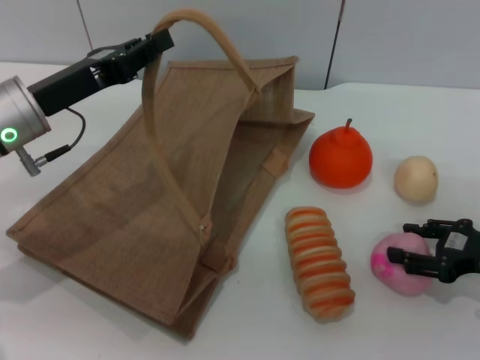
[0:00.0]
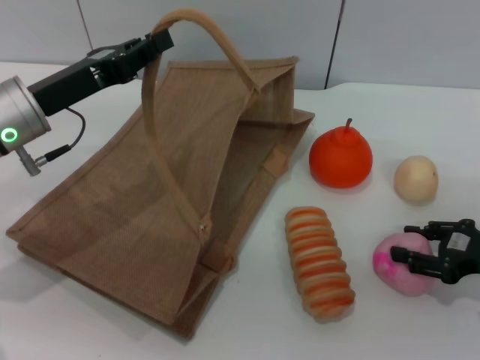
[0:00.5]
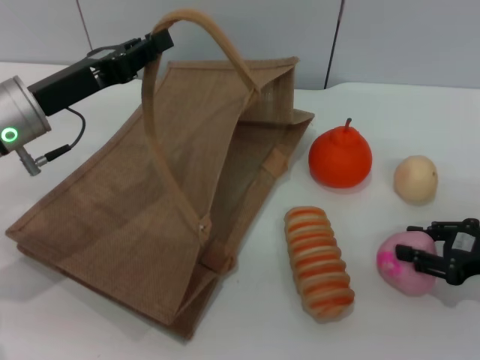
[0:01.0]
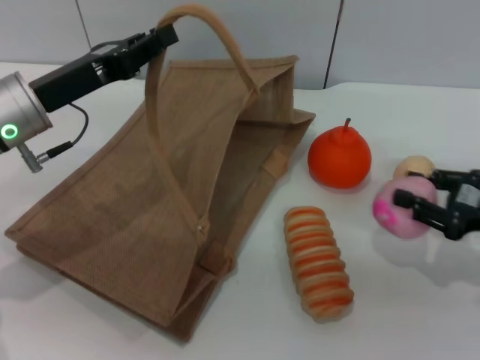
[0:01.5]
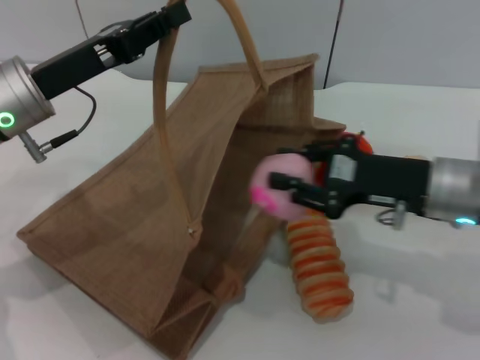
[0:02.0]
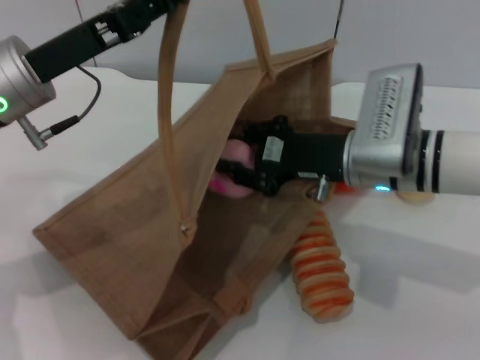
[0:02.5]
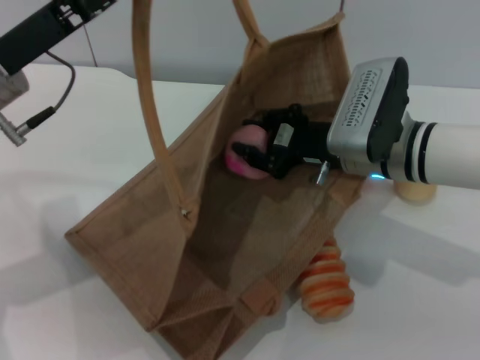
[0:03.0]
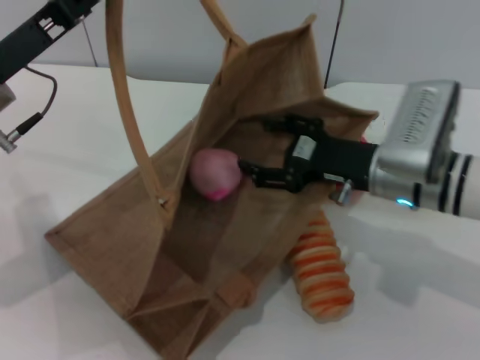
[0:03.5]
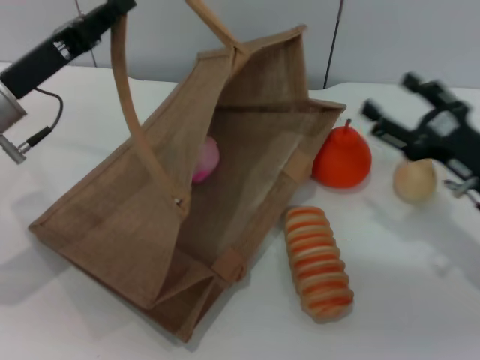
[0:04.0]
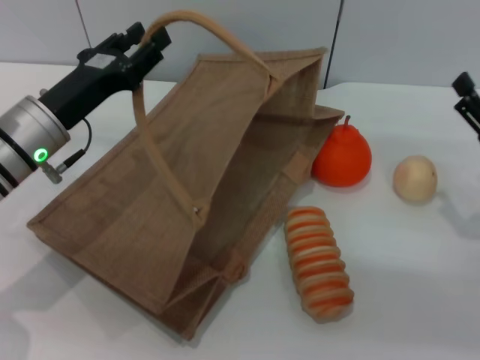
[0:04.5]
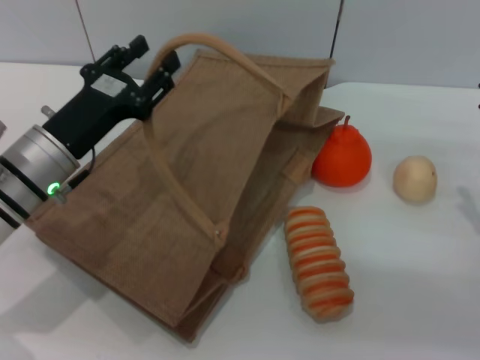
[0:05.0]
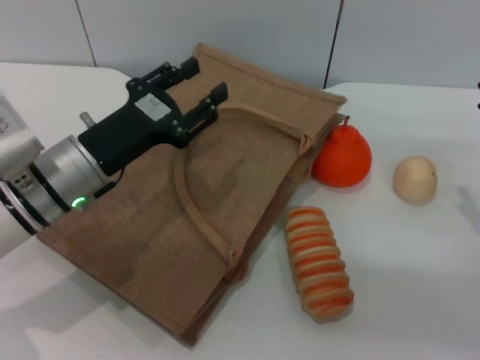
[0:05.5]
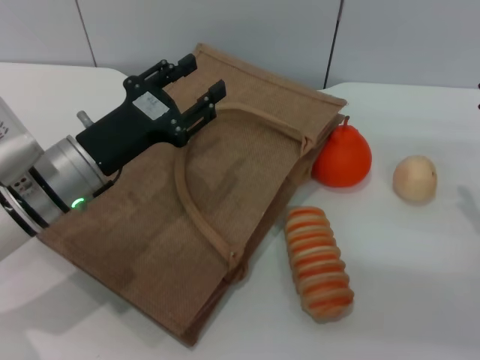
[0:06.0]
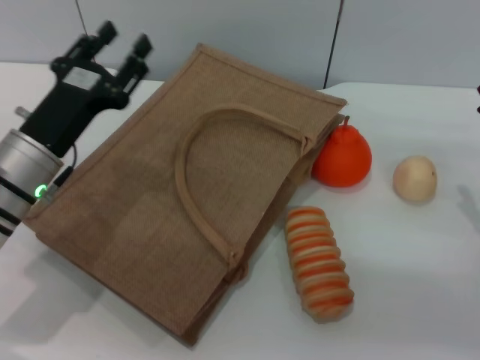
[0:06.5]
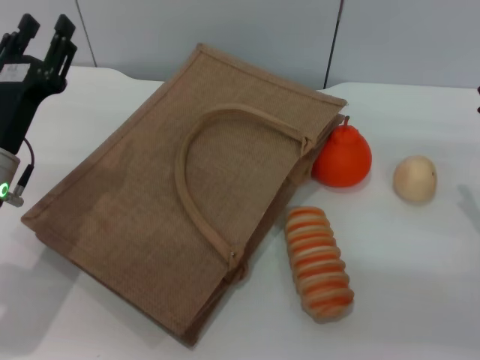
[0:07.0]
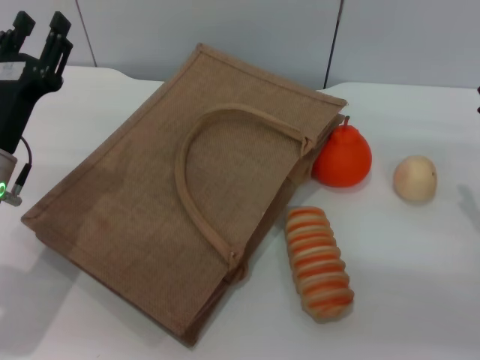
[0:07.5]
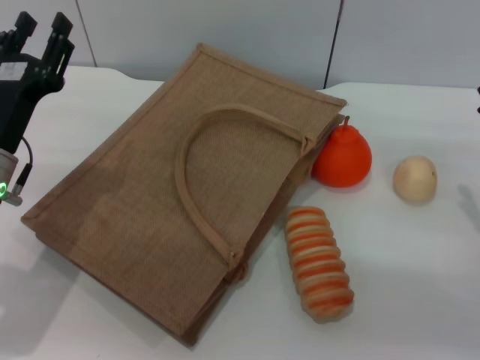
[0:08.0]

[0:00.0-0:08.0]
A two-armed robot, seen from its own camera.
Task of the whole recording: pick up the peach from the table and place it in the brown handbag.
Step, 2.0 to 4.0 s: Place the peach into the woven bag with the right gripper.
Step, 4.5 to 5.5 s: Lower the woven bag with the left gripper to close it.
0.0 to 2.0 s: The right gripper moves to the left and upward, roughly 15 cm, and closes.
2.0 to 4.0 s: The right gripper heads to the right, covering approximately 5 cm, and opens up.
4.0 to 6.0 s: The right gripper moves roughly 5 cm, while the left gripper heads to the right and downward, covering some 10 cm, and opens up.
6.0 to 8.0 s: The left gripper shifts roughly 5 cm to the left.

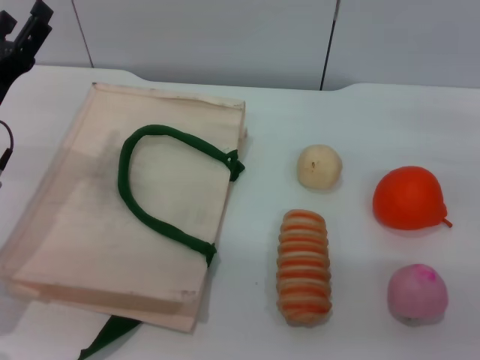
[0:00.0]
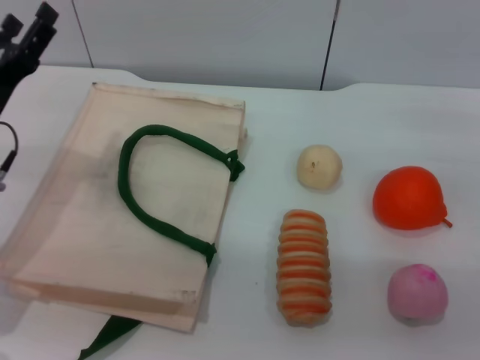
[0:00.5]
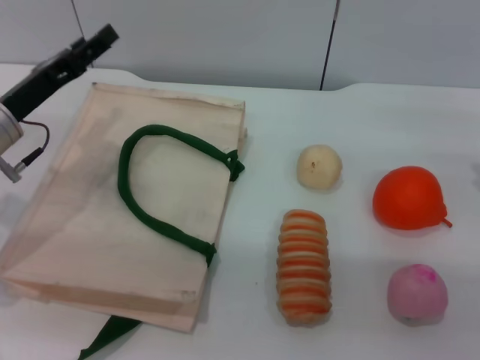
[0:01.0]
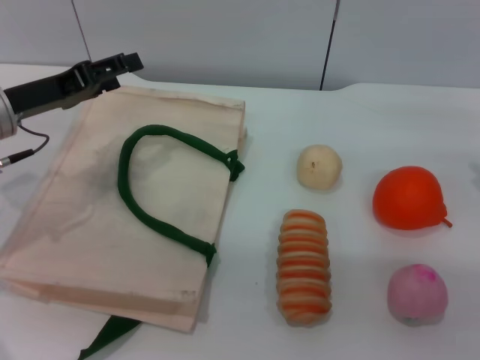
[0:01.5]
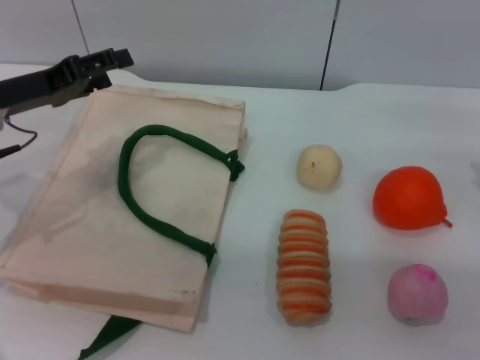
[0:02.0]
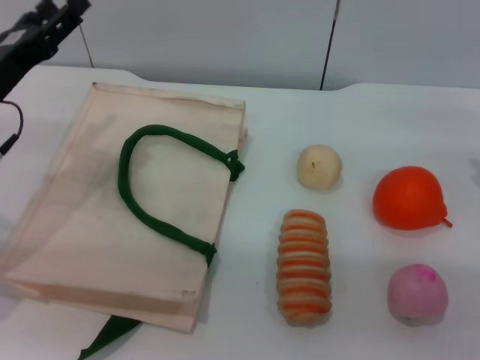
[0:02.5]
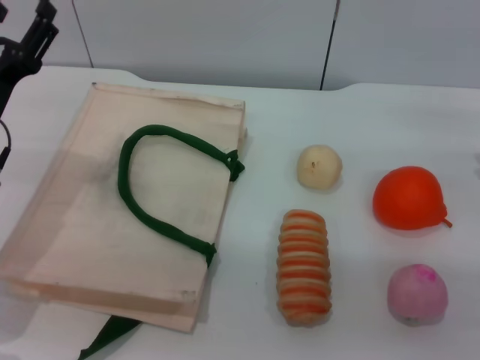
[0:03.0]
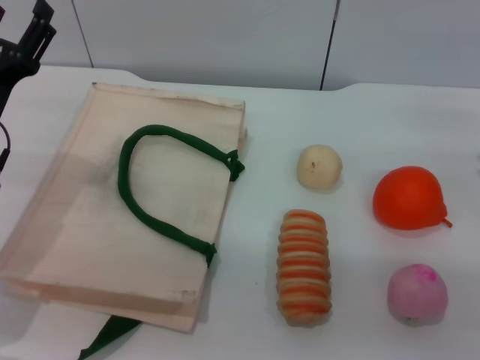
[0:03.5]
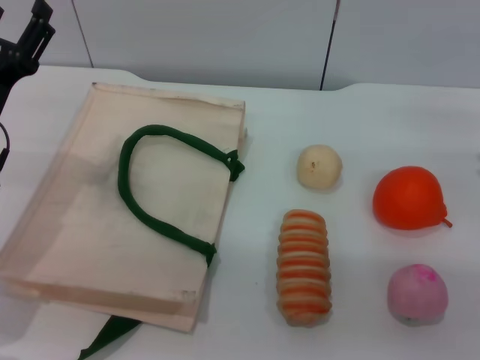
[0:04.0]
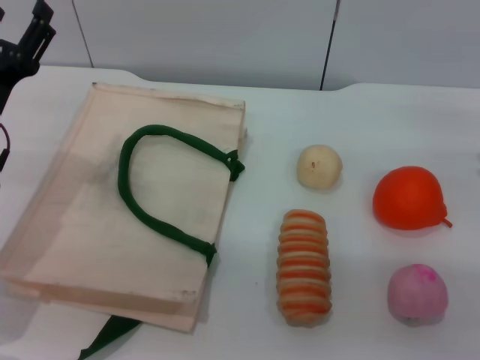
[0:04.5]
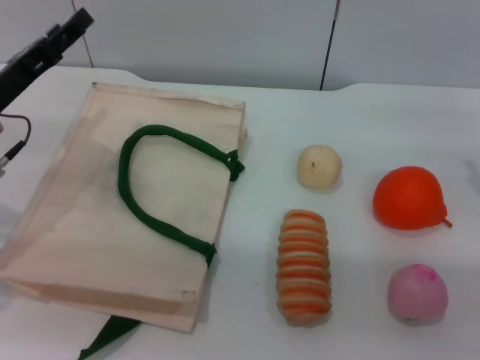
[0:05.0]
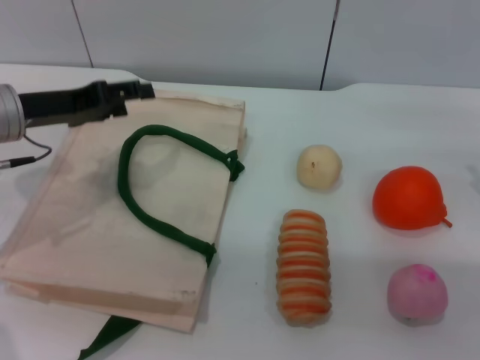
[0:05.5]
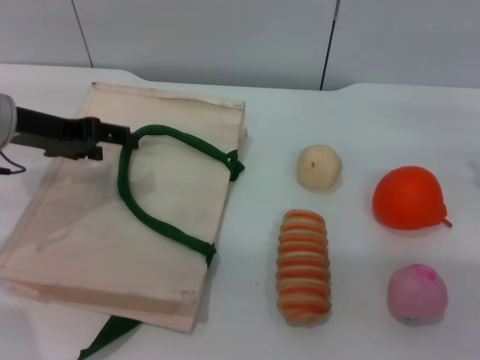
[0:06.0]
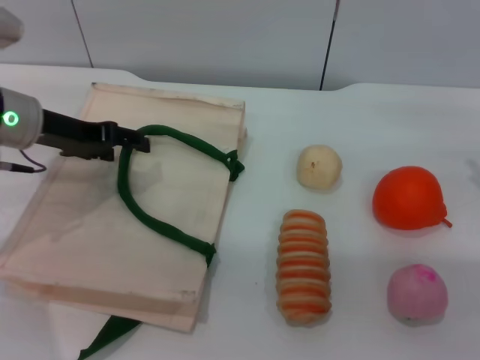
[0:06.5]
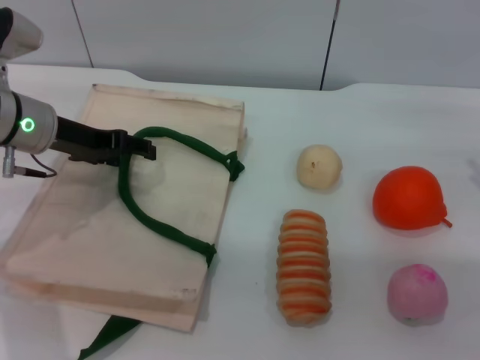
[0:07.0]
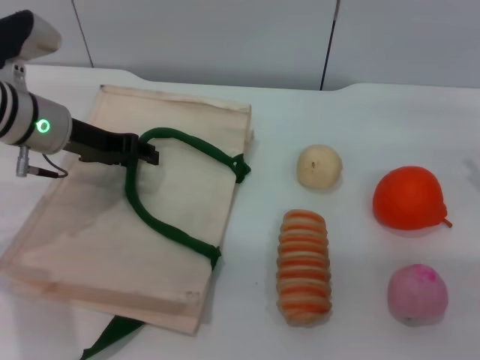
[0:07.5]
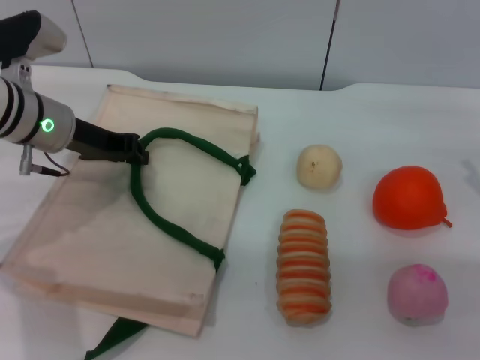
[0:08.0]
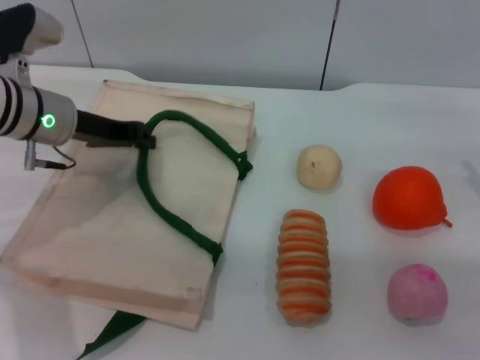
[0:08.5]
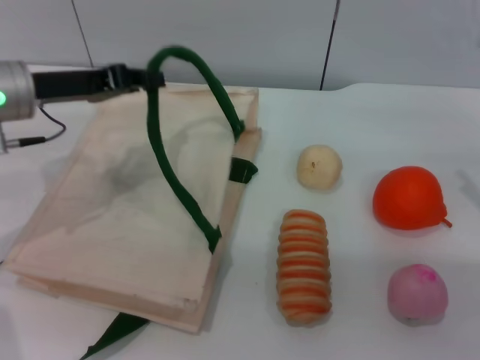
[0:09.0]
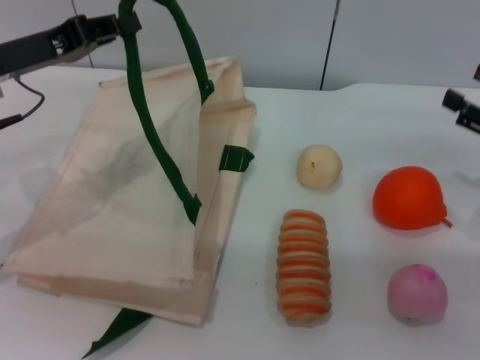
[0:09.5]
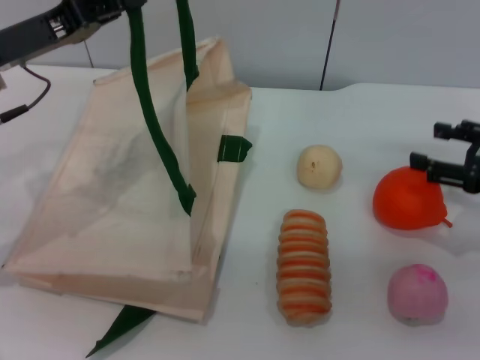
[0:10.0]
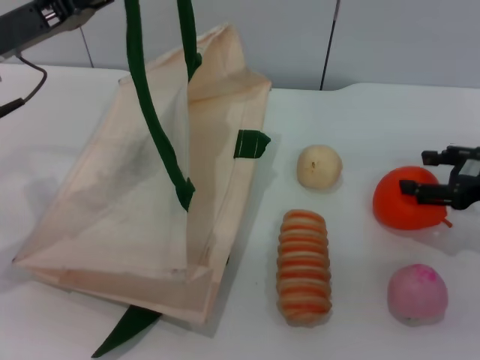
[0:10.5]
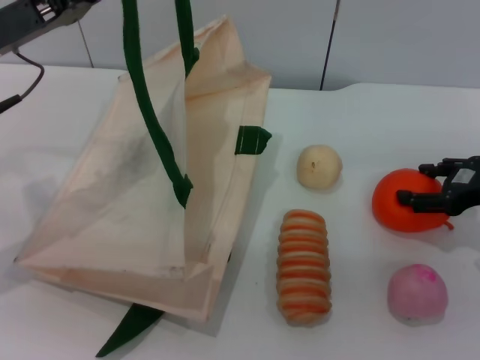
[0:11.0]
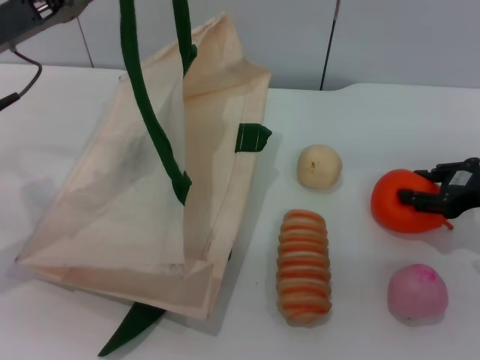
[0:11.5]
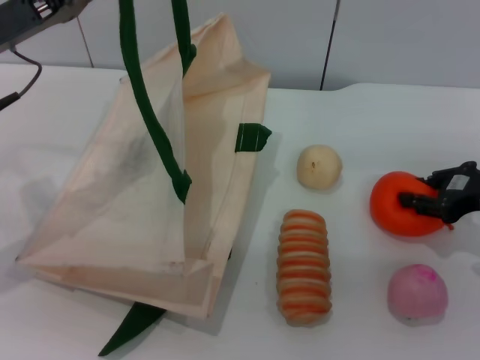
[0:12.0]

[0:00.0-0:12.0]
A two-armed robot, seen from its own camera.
Task of the whole recording: pick up the orange and peach from the table and place it in the white handbag.
Step, 0.0 to 8.5 s: Lift the woven bag with the left gripper to open it.
0.0 to 2.0 s: The left gripper ends up roughly 5 cm from where it was.
2.0 to 4.0 s: The left gripper moves approximately 5 cm.
4.0 to 6.0 s: The left gripper is displaced upward and forward by roughly 10 cm.
6.0 to 8.0 s: The left gripper moves approximately 5 cm, and closes up.
8.0 to 10.0 s: The left gripper heads upward, covering some 5 cm.
10.0 to 12.0 s: The right gripper closes its fingers.

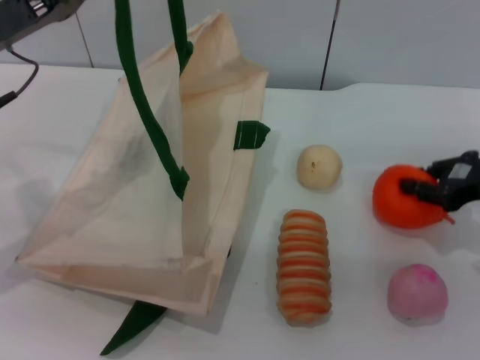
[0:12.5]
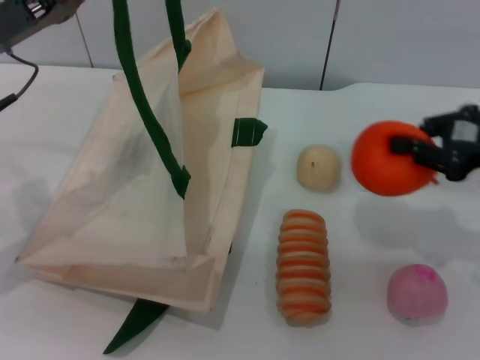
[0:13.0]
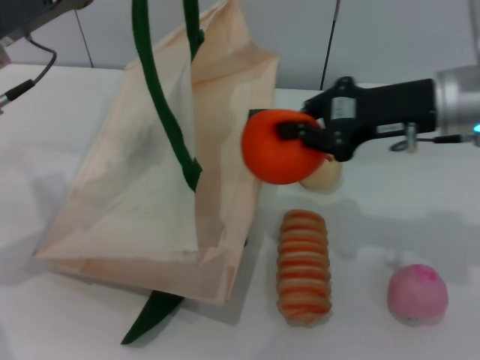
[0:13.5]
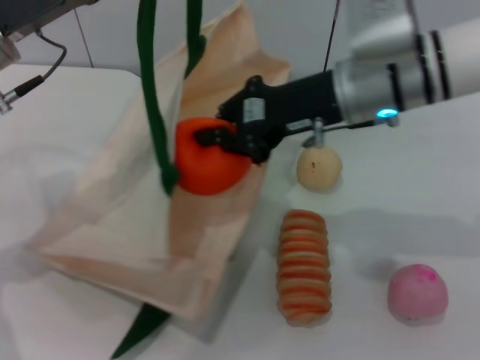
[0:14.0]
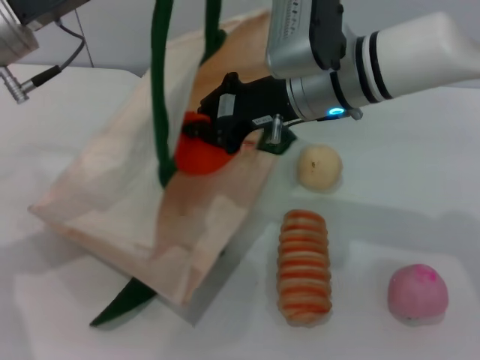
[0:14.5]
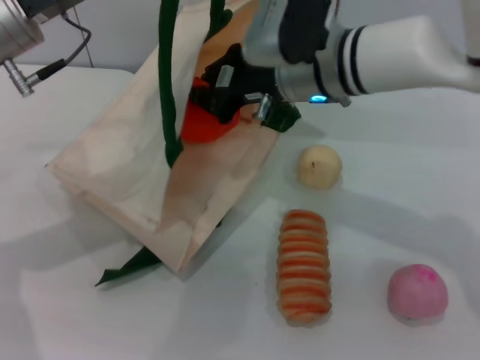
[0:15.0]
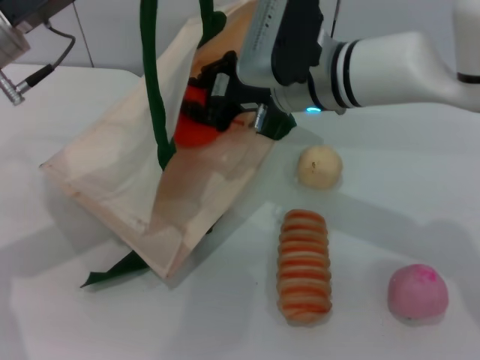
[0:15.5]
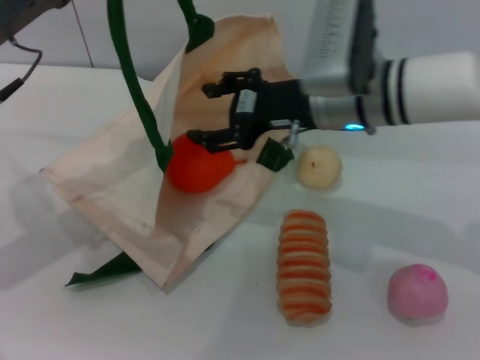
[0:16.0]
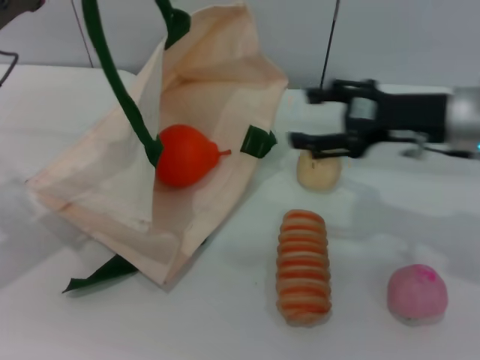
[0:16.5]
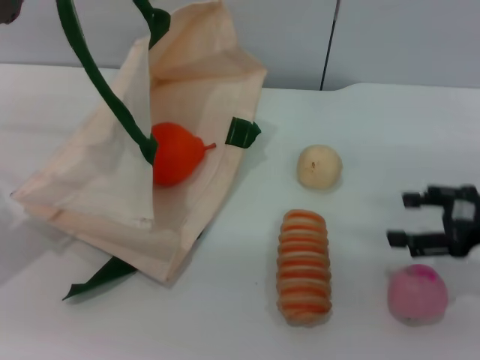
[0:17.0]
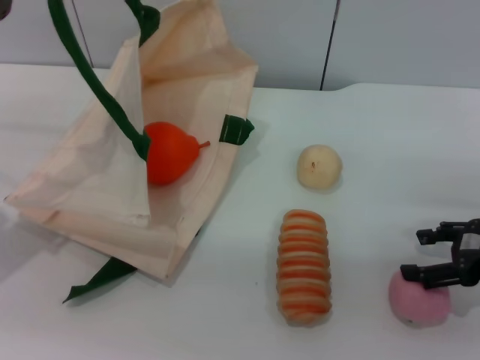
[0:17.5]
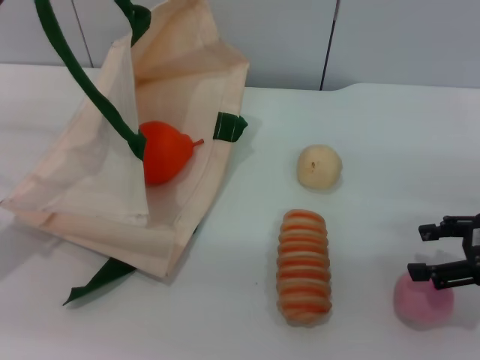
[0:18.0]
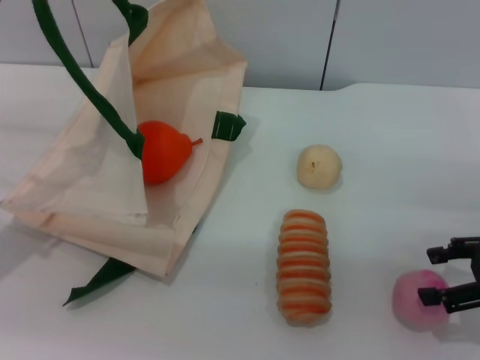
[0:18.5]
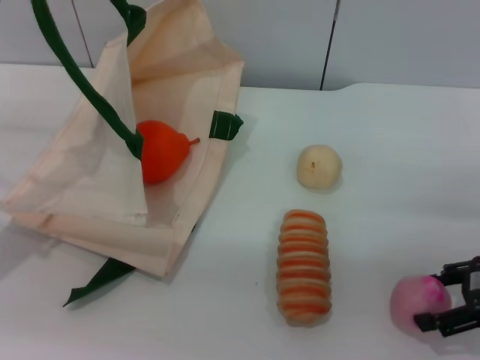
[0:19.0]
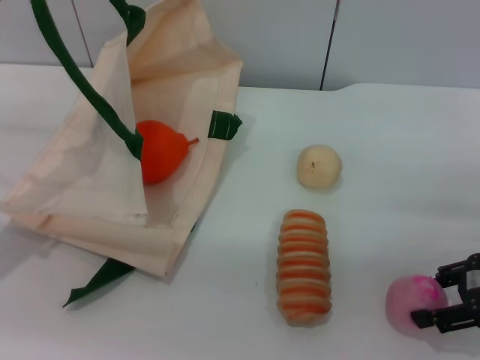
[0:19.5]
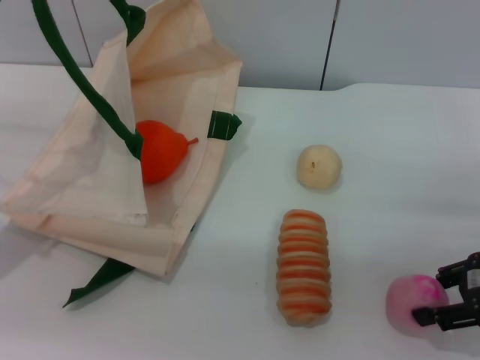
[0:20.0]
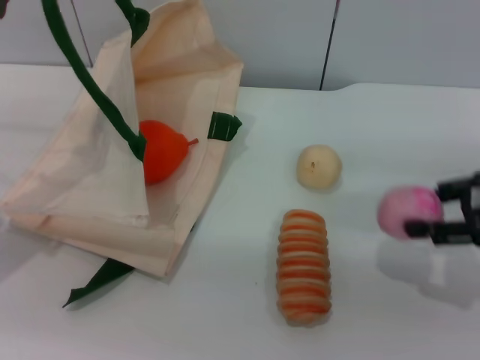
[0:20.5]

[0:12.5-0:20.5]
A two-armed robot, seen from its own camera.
Task of the whole recording: pick up the orange and peach from the table and place it in the white handbag.
Step, 13.5 to 16.0 s: Place the orange into the woven bag with the right gripper.
Step, 16.5 to 20.5 s: Pick up the peach with the right gripper.
12.5 to 14.5 s: The right gripper shifts roughly 25 cm to the left.
14.5 to 16.5 s: The right gripper moves to the right, some 15 cm, and opens its fingers; the left gripper shifts approximately 5 cm to the left.
16.5 to 18.5 s: The right gripper moves to the right and backward, roughly 15 cm.
18.5 to 20.5 s: The right gripper changes place by some 5 cm.
